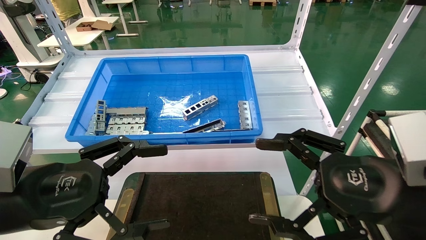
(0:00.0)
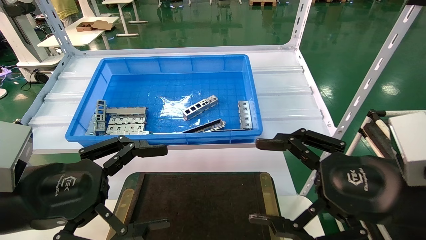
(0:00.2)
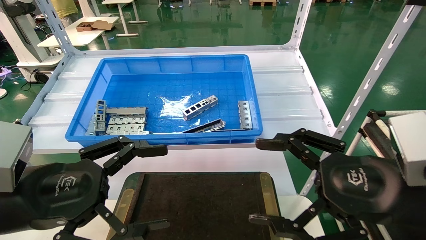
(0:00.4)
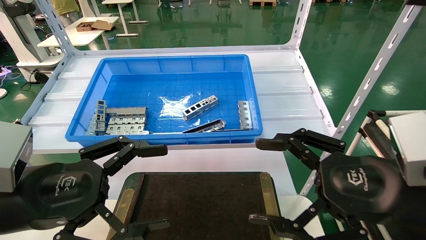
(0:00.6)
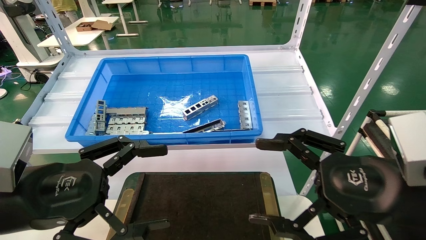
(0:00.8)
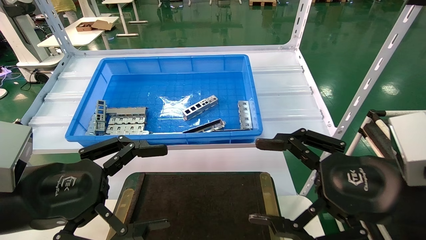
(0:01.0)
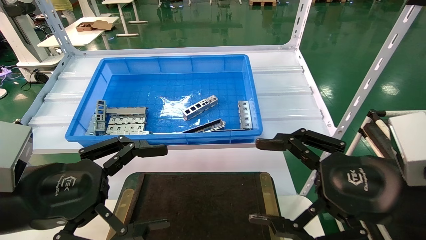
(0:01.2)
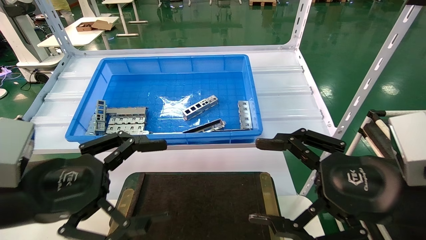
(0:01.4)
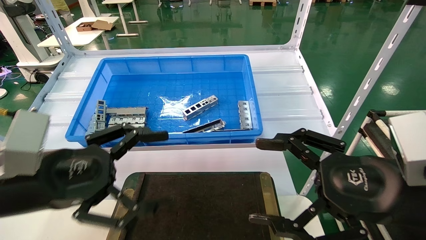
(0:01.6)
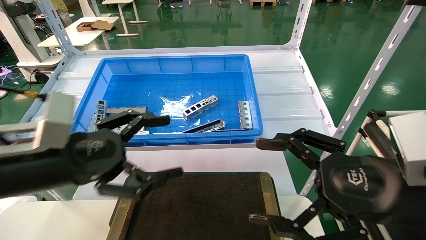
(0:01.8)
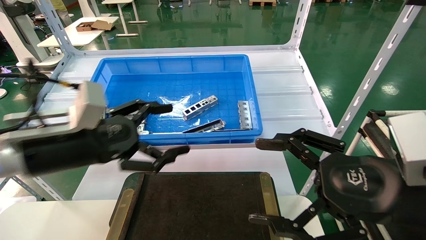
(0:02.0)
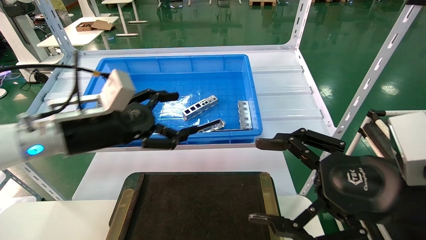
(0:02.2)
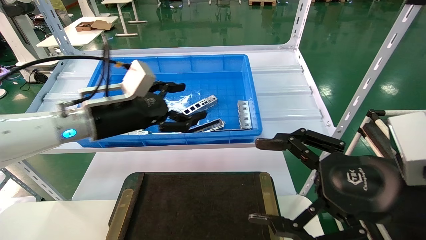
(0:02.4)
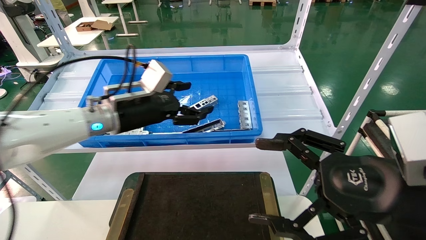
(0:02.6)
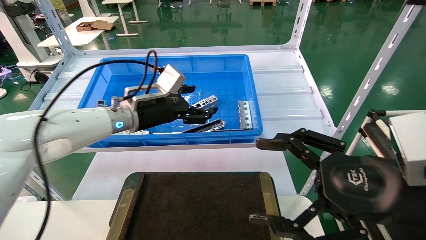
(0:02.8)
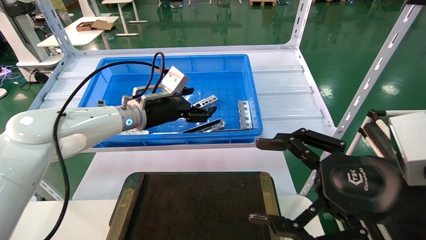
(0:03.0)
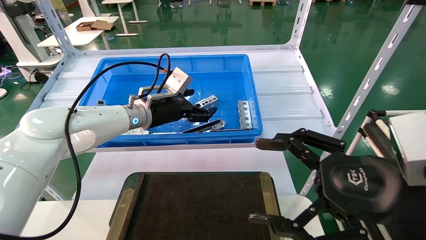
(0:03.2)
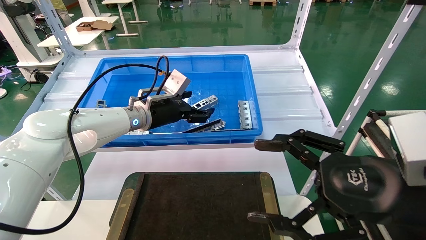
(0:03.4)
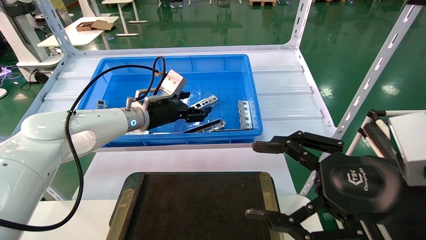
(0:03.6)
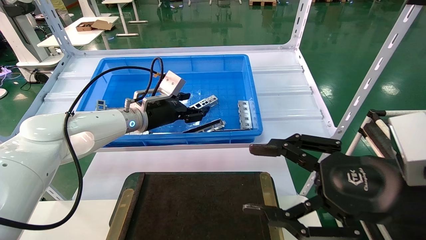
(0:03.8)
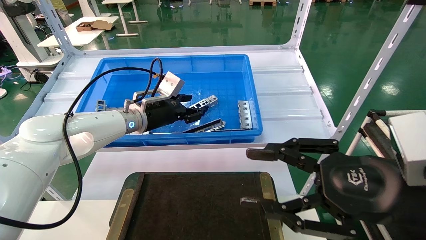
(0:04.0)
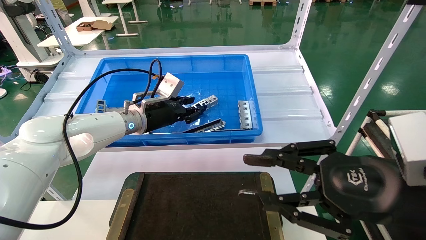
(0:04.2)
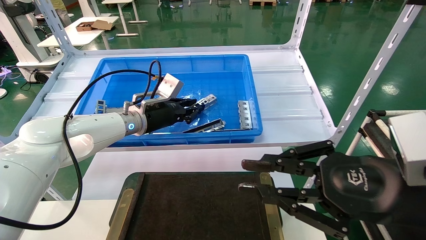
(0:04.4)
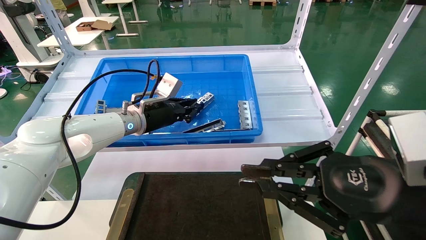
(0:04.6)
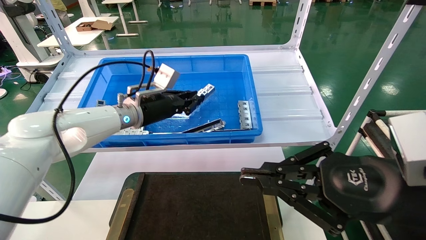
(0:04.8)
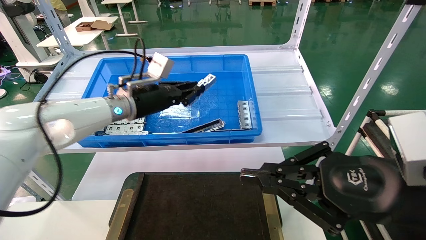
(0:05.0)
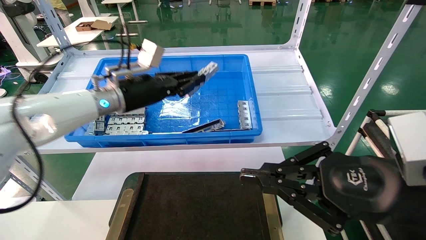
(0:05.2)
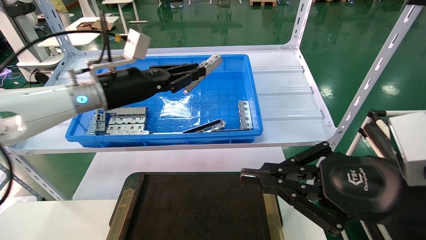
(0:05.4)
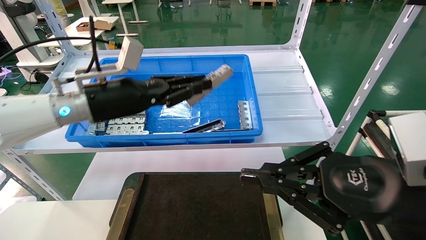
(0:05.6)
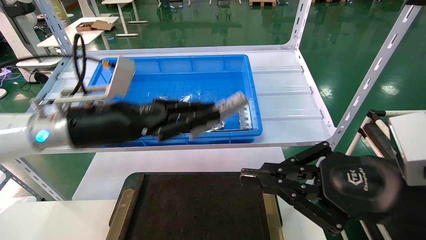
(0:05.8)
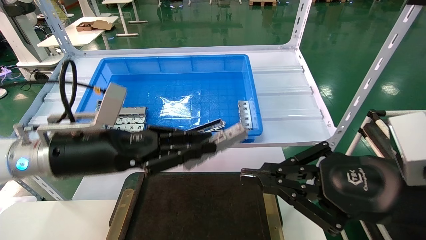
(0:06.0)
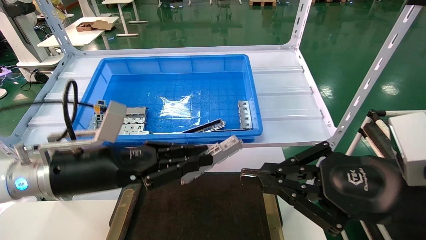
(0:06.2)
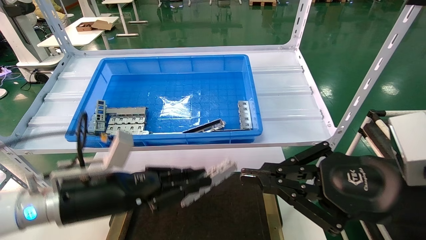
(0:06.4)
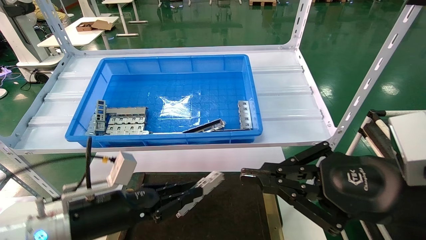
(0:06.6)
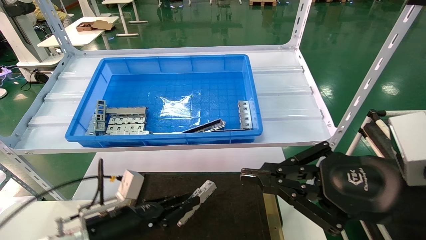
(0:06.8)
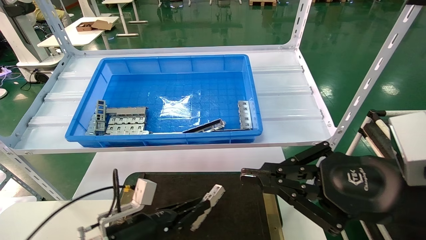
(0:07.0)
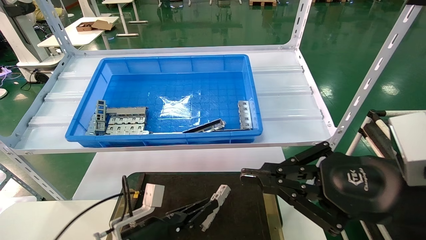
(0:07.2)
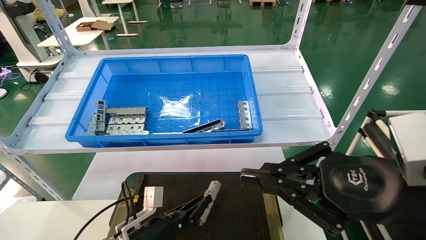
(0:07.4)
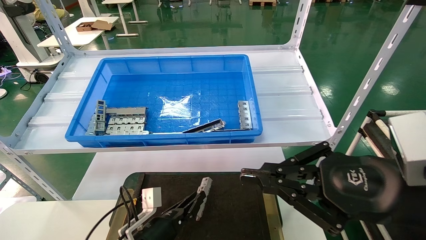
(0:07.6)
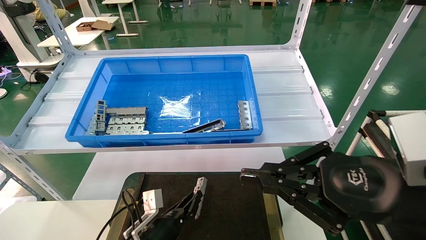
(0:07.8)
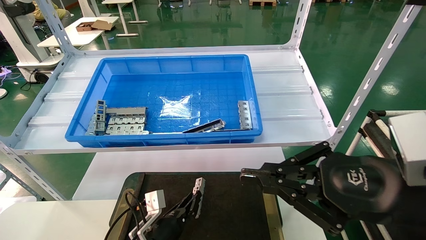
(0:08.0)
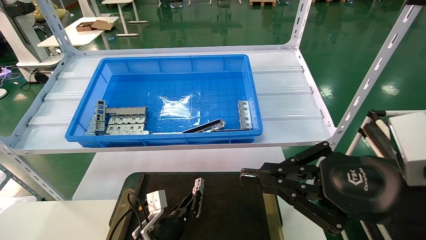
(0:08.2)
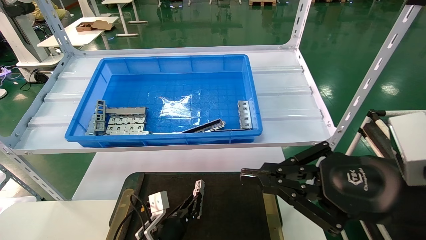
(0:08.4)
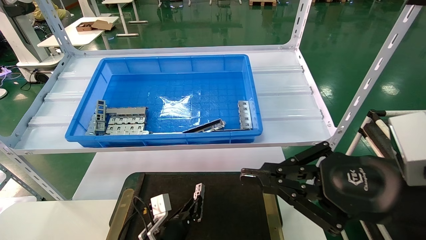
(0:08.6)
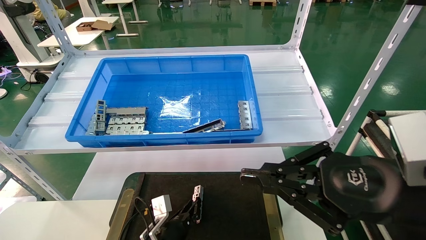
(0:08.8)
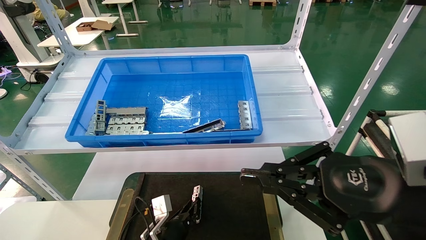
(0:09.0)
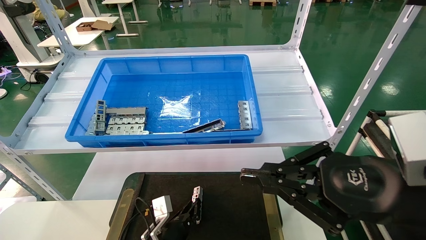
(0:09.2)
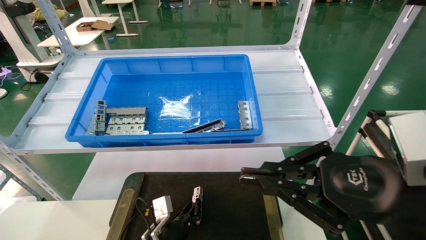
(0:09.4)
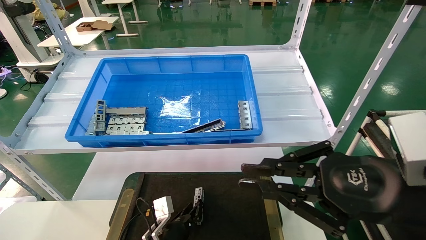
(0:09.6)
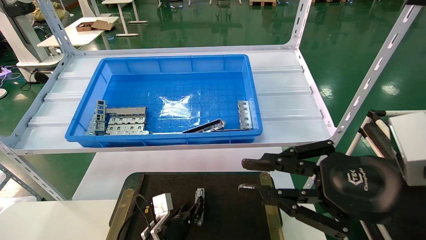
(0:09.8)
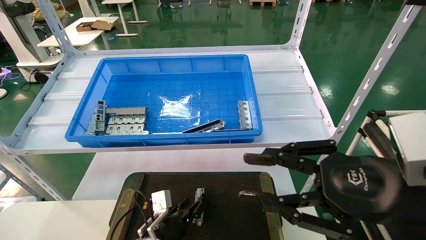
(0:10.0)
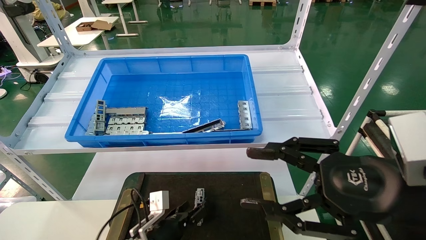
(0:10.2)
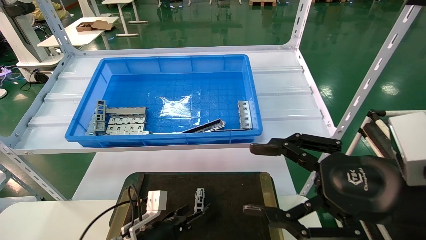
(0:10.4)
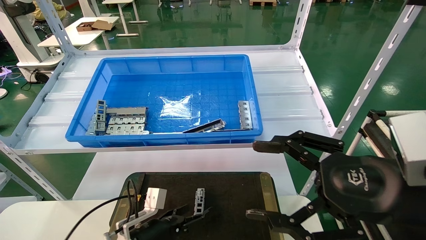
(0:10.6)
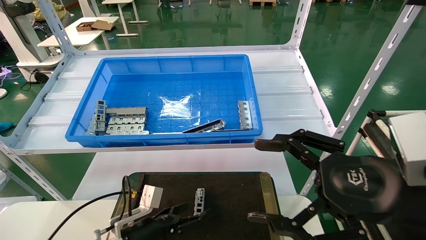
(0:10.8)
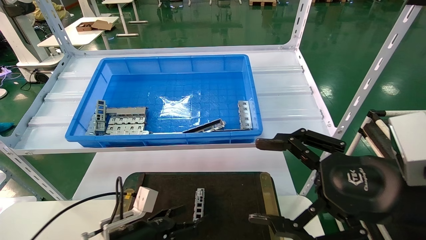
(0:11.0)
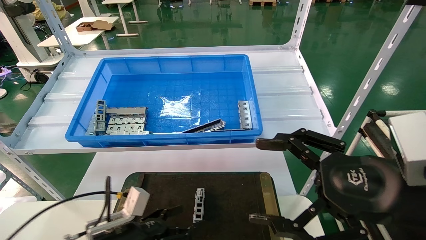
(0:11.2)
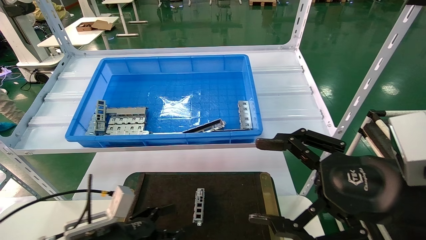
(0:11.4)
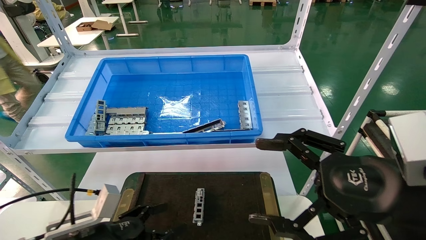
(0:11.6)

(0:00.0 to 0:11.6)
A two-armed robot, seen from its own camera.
Task of the whole recording: Grasp the part with one hand and place it on the black container.
Step, 0:01.6 - 0:04.6: Pick up the front USB bracket from the feeding area.
Step, 0:04.8 - 0:09.6: Place the front USB bracket into the box.
0:00.0 - 0:01.4: Neither gripper changes place.
0:01.4 - 0:02.8: The left gripper is displaced forward by some 25 cm.
0:02.8 - 0:04.4: The left gripper ends up about 5 cm from where it was, and closes its fingers. The right gripper closes up.
0:04.4 - 0:05.8: The left gripper goes approximately 15 cm backward.
0:05.8 - 0:07.2: The left gripper goes roughly 25 cm downward.
0:07.2 - 0:08.8: The left gripper moves downward and forward, some 10 cm.
0:08.8 - 0:10.2: The left gripper changes place by roughly 5 cm, and opens its fingers. The right gripper opens.
0:10.2 - 0:11.6: The left gripper goes some 15 cm to the left, upward and backward, and opens up, while the right gripper opens.
